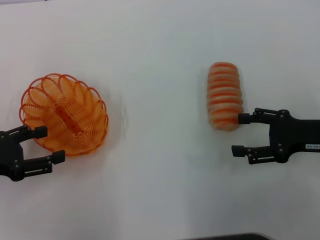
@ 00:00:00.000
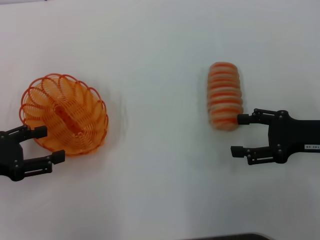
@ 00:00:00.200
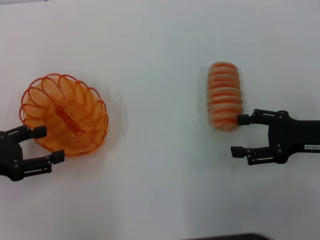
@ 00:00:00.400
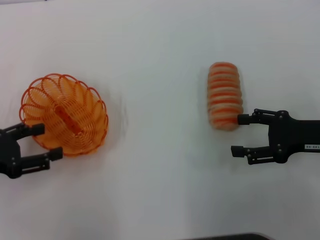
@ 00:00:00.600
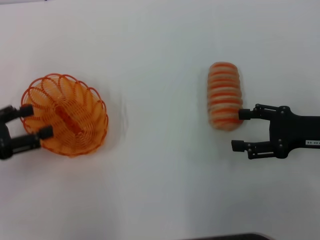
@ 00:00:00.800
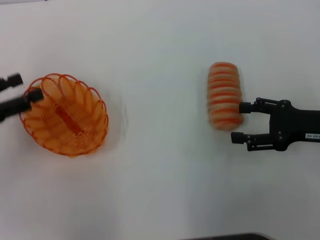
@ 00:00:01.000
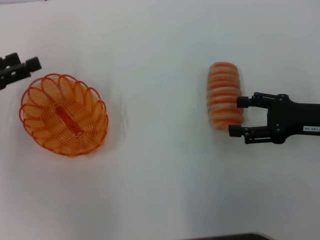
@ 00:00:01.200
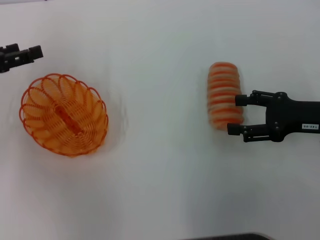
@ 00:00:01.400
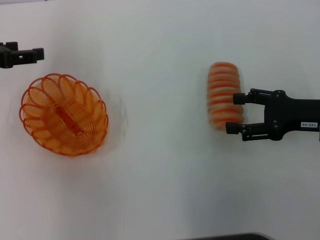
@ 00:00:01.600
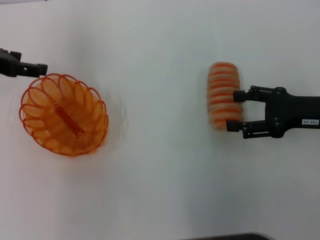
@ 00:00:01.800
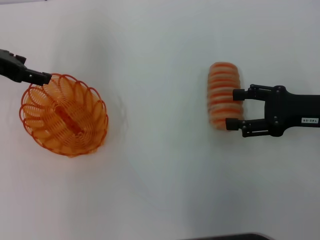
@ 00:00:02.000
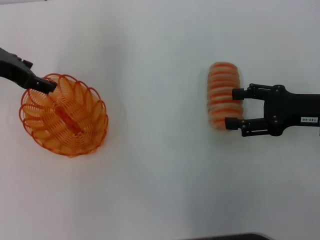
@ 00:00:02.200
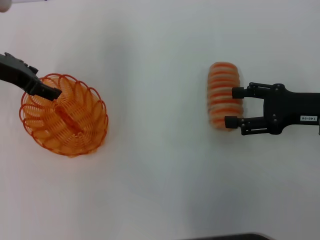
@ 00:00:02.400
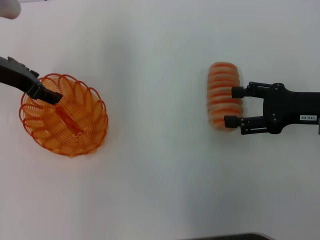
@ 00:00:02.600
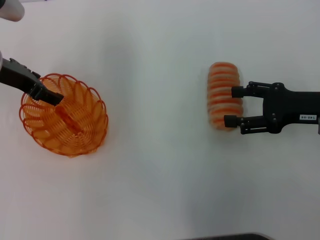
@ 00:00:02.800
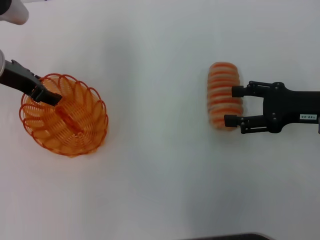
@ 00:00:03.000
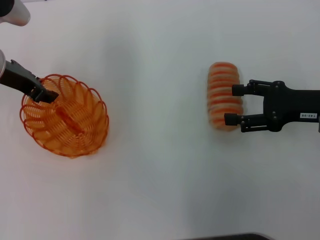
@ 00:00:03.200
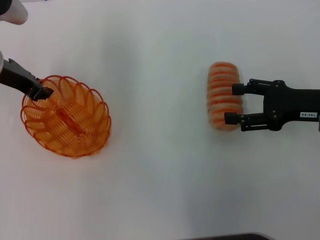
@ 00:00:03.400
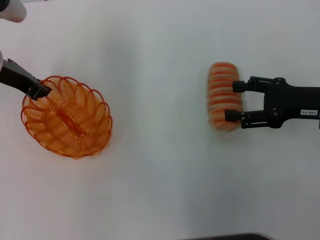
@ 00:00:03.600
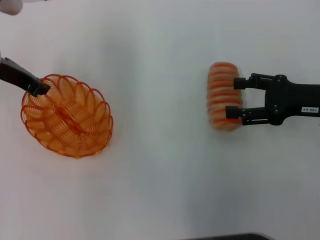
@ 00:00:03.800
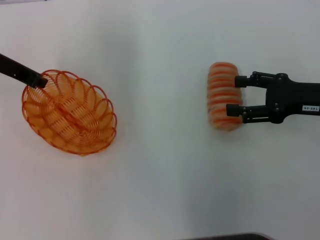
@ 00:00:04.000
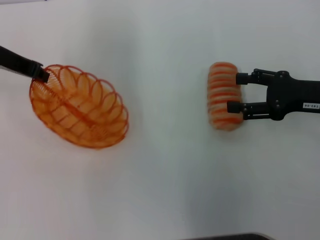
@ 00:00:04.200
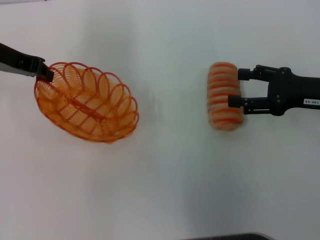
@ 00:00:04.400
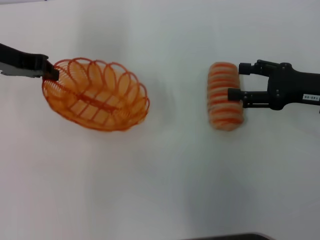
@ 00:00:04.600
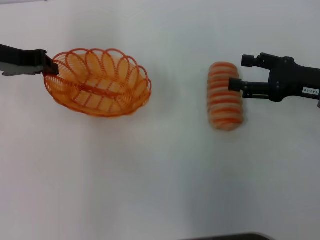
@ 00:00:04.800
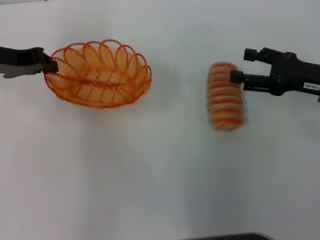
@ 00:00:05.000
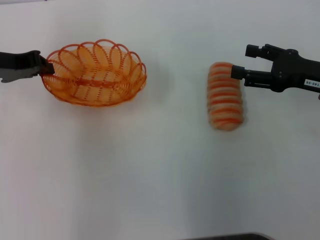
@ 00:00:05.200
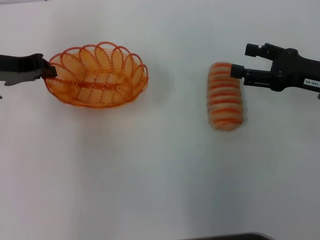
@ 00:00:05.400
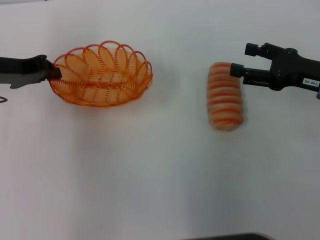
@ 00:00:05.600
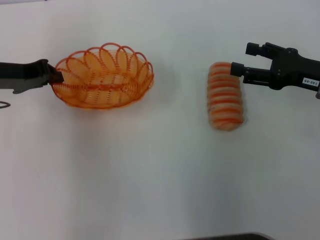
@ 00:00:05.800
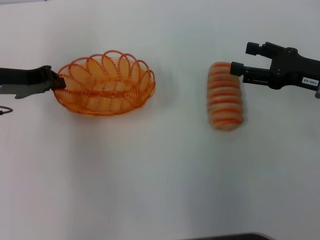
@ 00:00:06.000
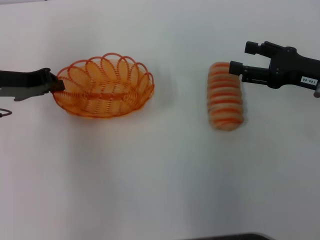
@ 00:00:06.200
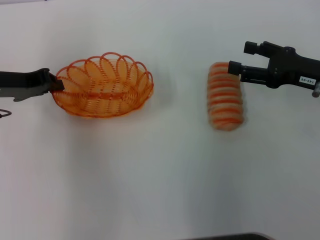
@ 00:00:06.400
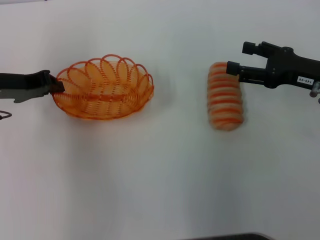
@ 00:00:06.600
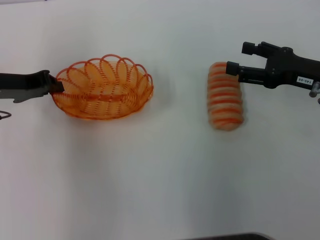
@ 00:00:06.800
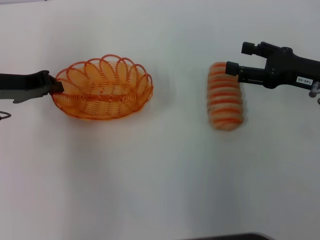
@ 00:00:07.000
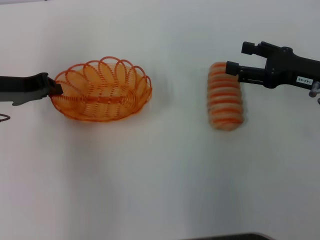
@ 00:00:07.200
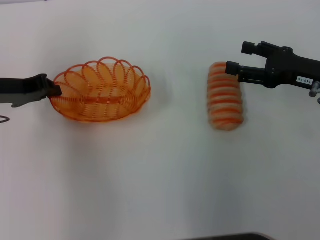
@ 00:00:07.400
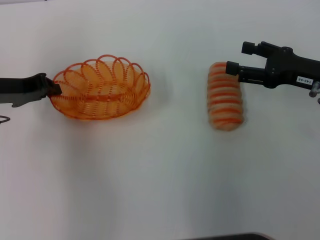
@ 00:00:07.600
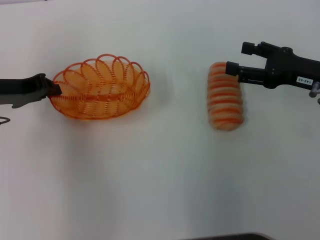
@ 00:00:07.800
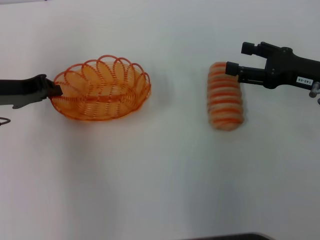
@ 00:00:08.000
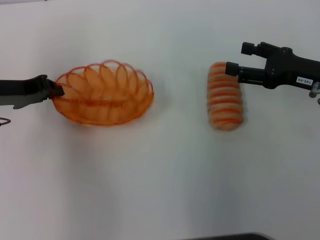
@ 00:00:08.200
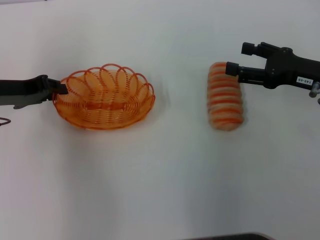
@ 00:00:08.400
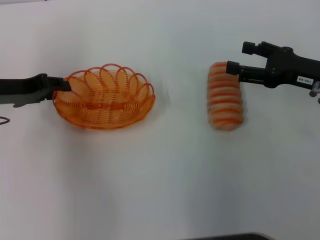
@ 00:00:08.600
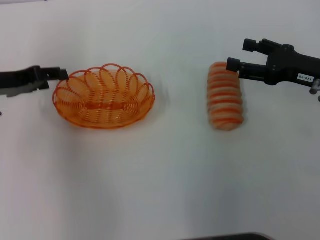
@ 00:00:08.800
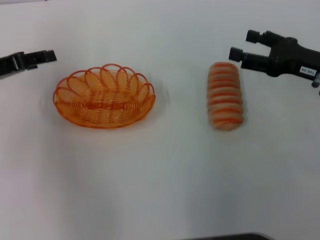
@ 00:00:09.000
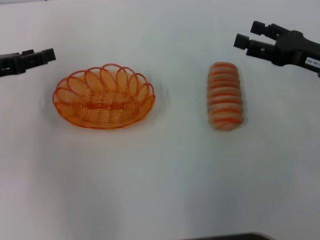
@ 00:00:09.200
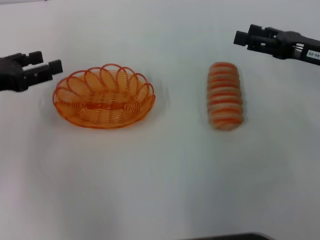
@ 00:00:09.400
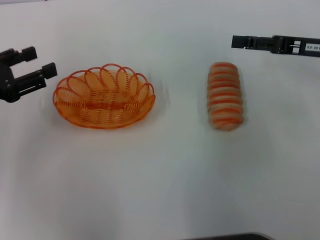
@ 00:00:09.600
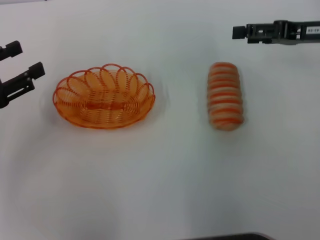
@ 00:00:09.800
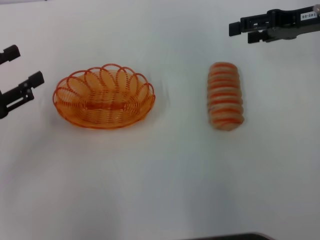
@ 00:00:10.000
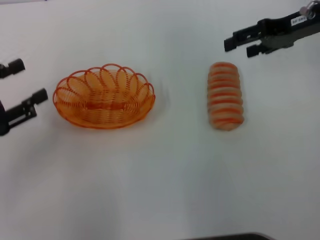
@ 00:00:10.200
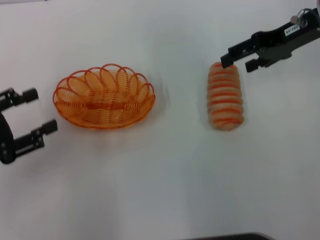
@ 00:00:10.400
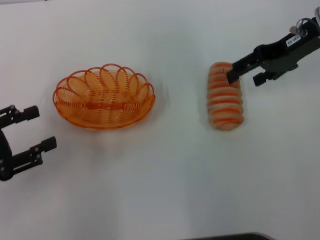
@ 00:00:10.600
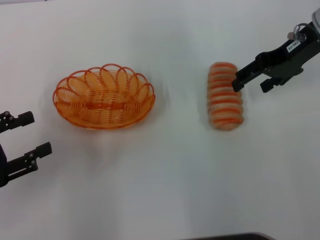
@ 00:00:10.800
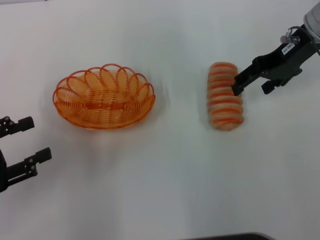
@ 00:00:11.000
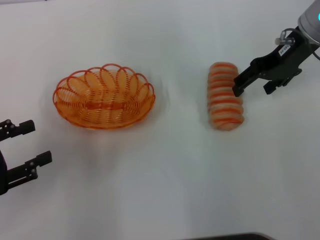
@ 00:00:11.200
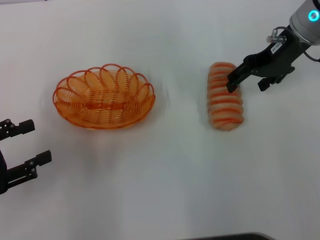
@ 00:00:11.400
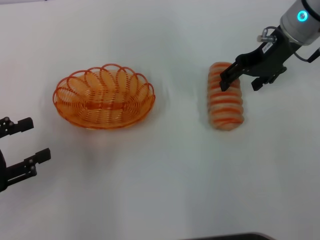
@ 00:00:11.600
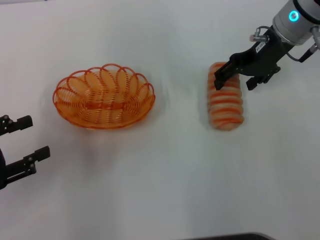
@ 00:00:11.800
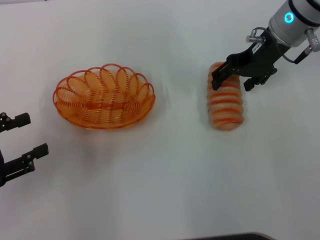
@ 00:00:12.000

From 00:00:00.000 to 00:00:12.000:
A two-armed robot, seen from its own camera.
Step, from 00:00:00.000 to 00:00:04.800: Pick up the basket with the left gripper.
Step, from 00:00:05.000 to 00:00:08.800: Place the basket in the center of view with the left gripper.
From 00:00:00.000 to 00:00:01.600: The left gripper travels forward and upward by some 15 cm.
From 00:00:01.600 to 00:00:03.000: The left gripper goes some 10 cm to the right.
From 00:00:03.000 to 00:00:04.400: The left gripper closes.
From 00:00:04.400 to 00:00:06.000: The left gripper moves downward, approximately 5 cm.
From 00:00:06.000 to 00:00:07.600: The grippers stay close to where they were, moving slightly.
From 00:00:07.600 to 00:00:09.000: The left gripper opens.
From 00:00:09.000 to 00:00:10.400: The right gripper travels upward and forward by approximately 15 cm. The left gripper shifts some 10 cm backward.
From 00:00:10.400 to 00:00:12.000: The right gripper is displaced to the left by some 5 cm.

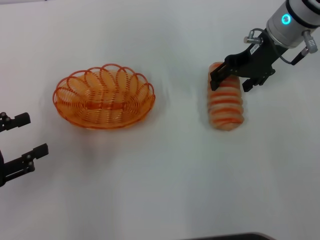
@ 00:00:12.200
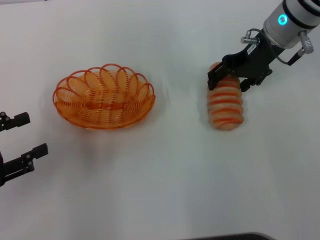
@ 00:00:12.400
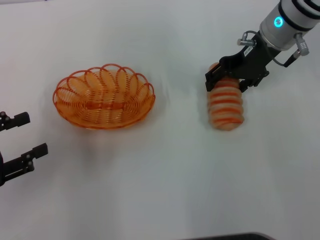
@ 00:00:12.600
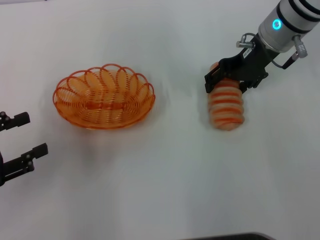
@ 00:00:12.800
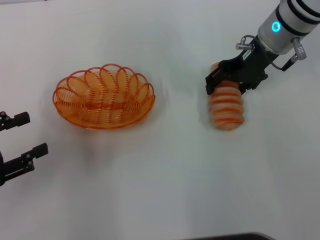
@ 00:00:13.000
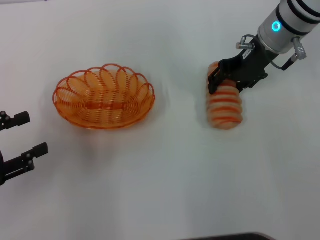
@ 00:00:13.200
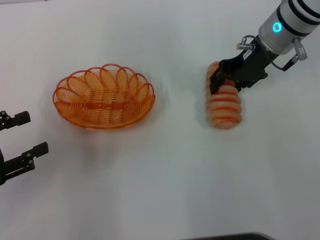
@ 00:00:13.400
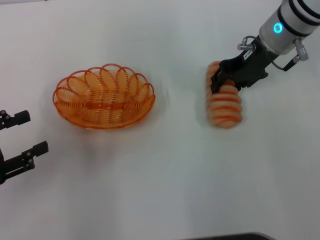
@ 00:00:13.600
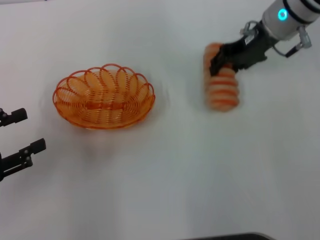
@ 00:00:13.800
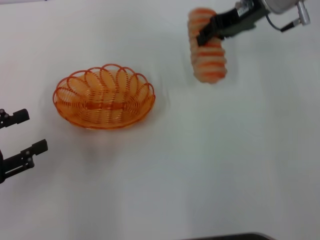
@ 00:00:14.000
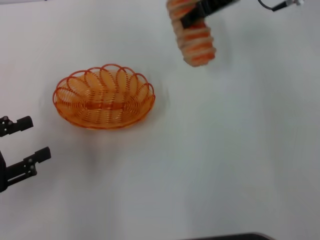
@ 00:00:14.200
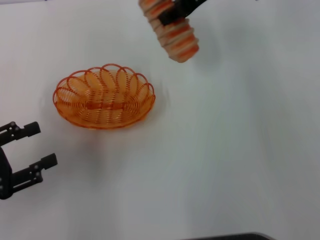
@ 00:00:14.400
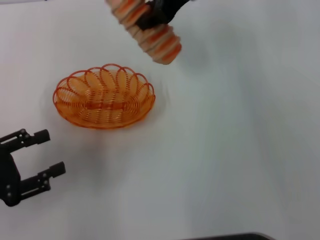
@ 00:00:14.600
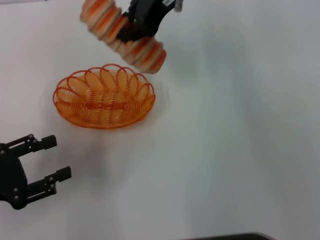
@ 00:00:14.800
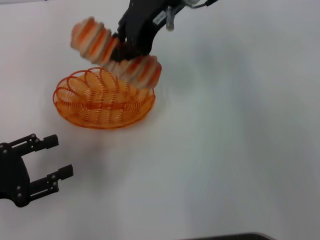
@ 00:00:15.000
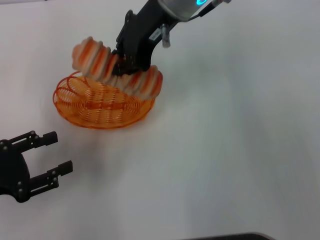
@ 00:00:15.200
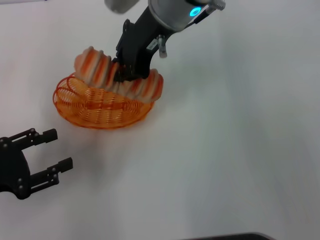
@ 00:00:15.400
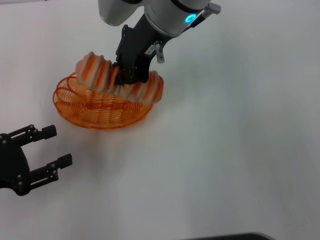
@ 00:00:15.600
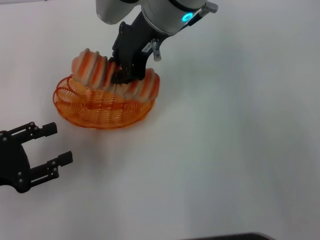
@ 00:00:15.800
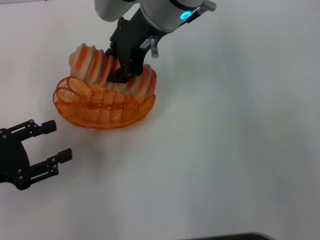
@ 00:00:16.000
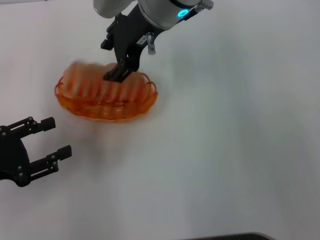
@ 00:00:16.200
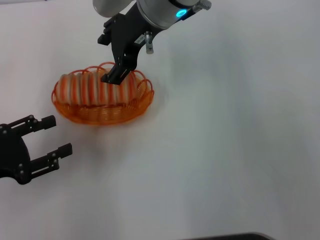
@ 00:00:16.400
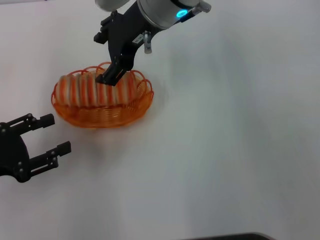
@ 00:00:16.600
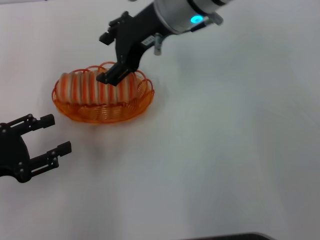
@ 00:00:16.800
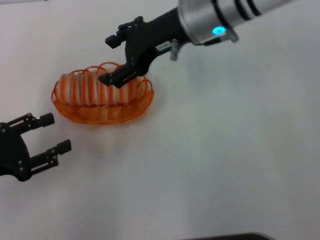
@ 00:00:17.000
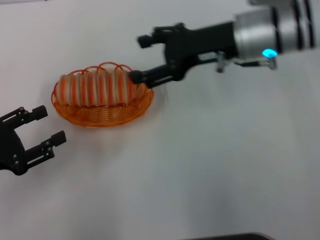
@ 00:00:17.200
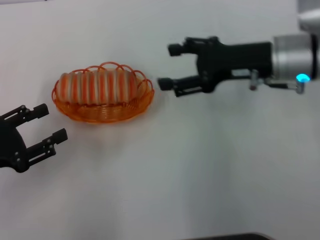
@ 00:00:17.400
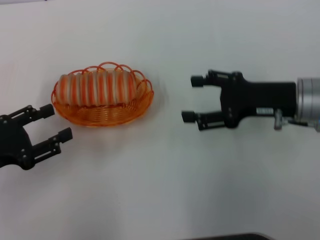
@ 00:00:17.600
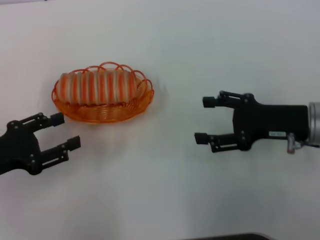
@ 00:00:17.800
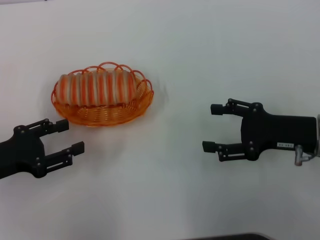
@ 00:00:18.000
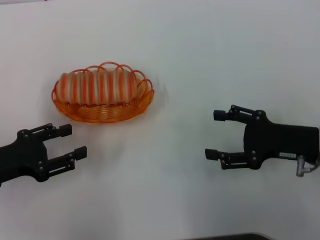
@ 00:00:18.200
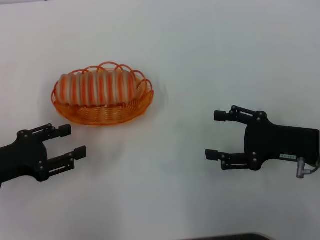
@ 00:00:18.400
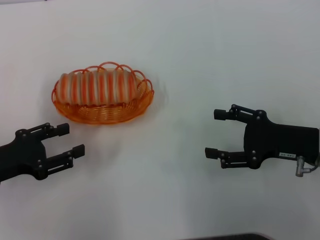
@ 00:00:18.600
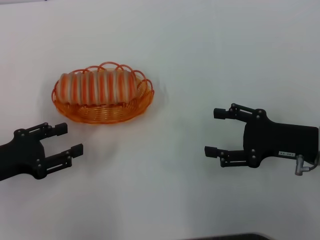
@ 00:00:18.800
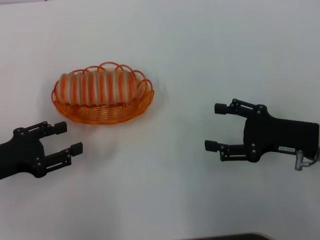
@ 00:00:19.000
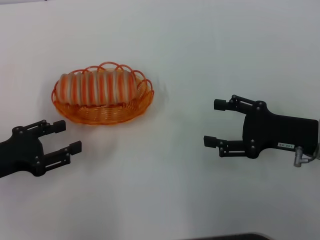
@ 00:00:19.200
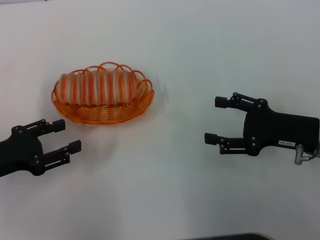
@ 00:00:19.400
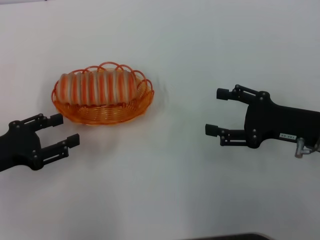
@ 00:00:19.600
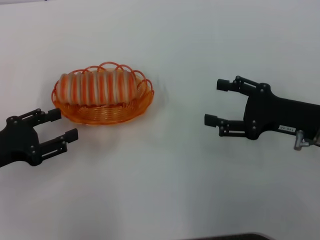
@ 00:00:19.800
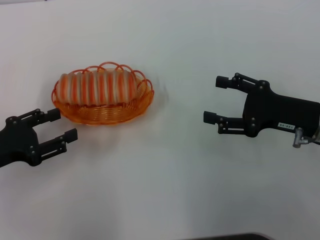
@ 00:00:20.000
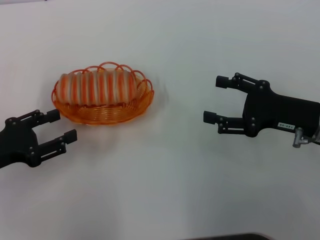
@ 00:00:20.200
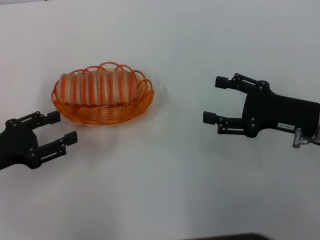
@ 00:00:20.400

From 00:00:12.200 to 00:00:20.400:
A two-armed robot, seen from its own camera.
Step, from 00:00:14.000 to 00:00:16.800: Place the long bread into the basket with the right gripper.
From 00:00:12.200 to 00:00:13.800: The right gripper closes up.
From 00:00:13.800 to 00:00:15.400: The right gripper moves to the left, about 15 cm, and closes.
From 00:00:15.400 to 00:00:17.200: The right gripper is displaced to the right and downward by some 15 cm, and opens its fingers.
From 00:00:17.200 to 00:00:18.800: The right gripper shifts about 20 cm backward, to the right and downward.
From 00:00:18.800 to 00:00:20.400: The grippers move only a little.
